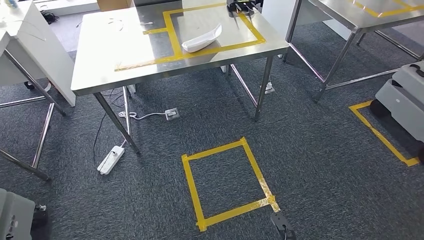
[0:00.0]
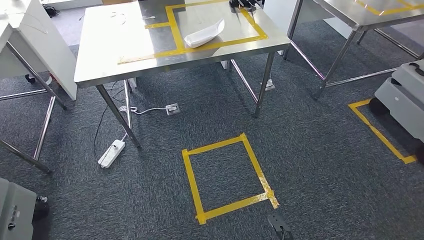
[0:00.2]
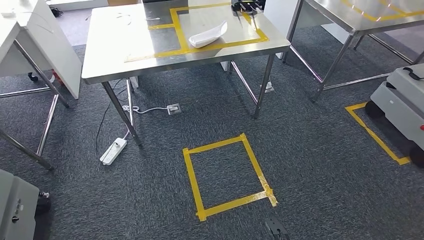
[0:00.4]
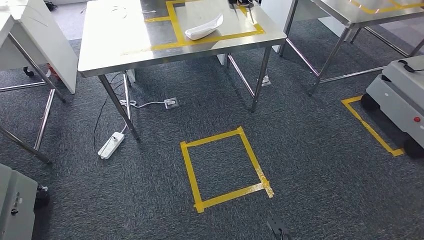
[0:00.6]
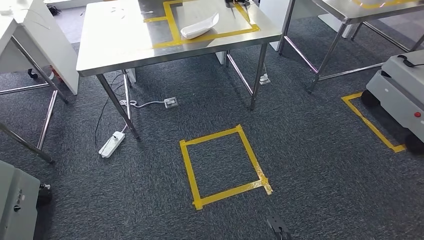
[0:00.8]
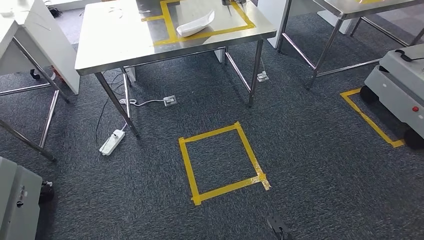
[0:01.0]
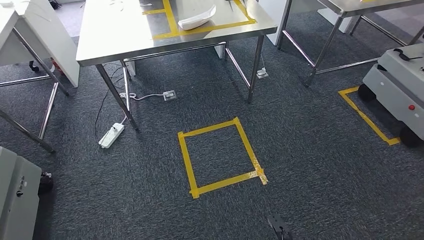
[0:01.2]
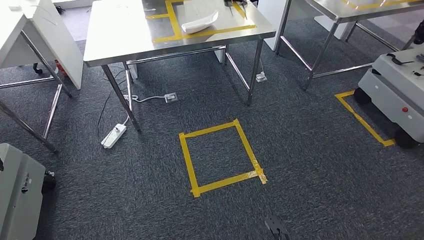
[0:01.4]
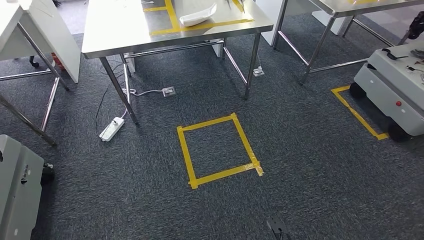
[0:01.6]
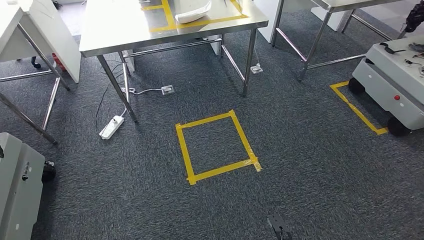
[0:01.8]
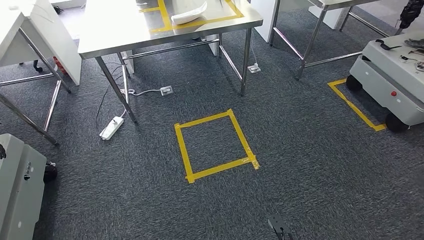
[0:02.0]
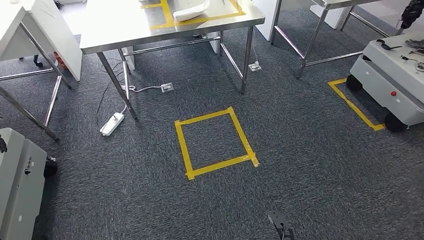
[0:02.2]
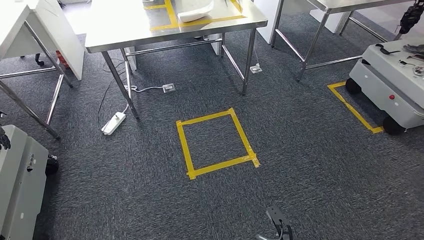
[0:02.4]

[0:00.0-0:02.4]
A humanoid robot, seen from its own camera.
Step, 0:00.0 to 0:02.4: Return to the initial position at the workbench.
